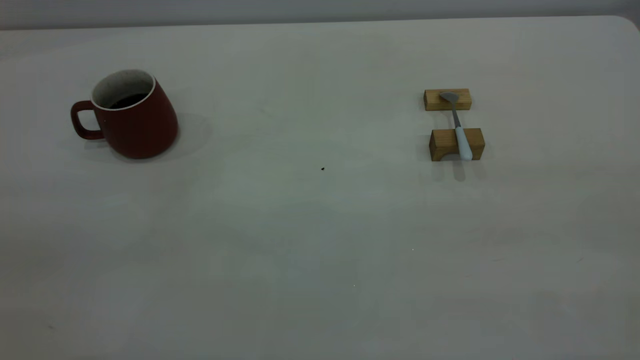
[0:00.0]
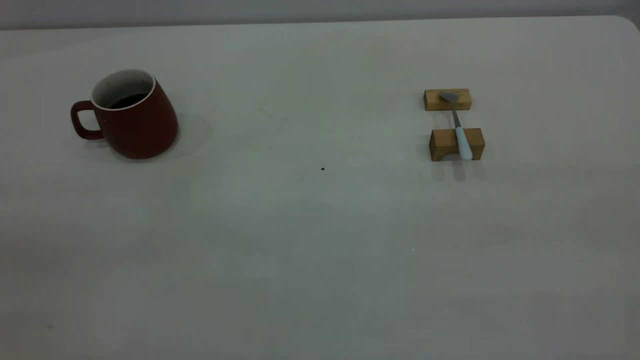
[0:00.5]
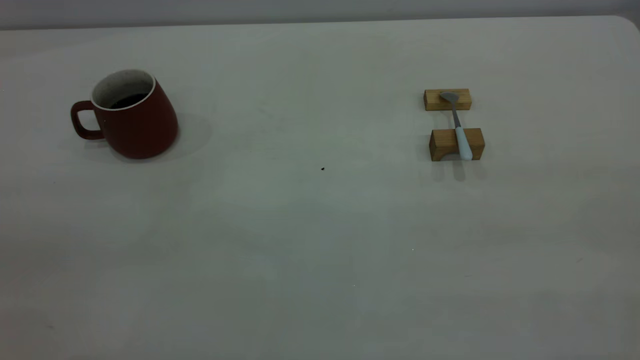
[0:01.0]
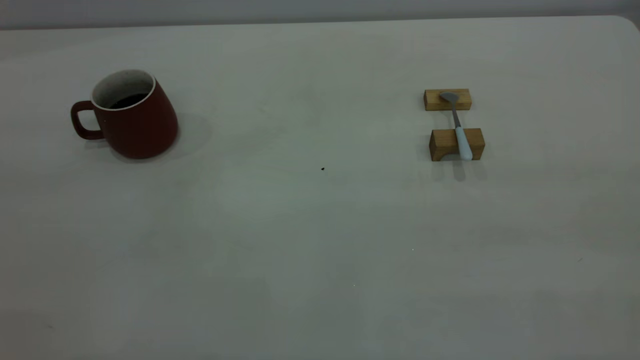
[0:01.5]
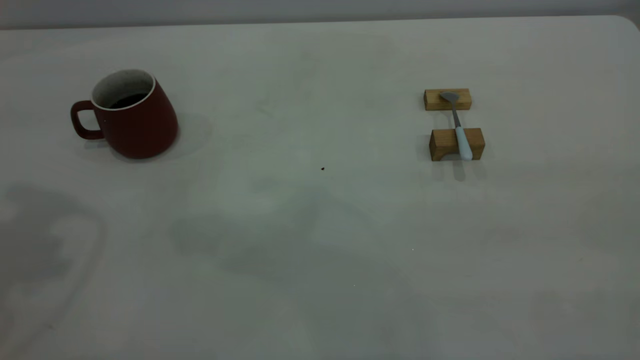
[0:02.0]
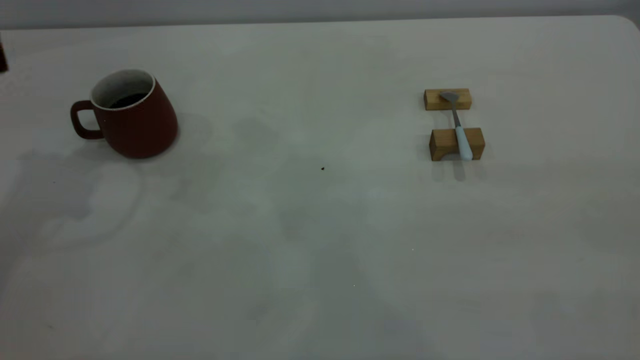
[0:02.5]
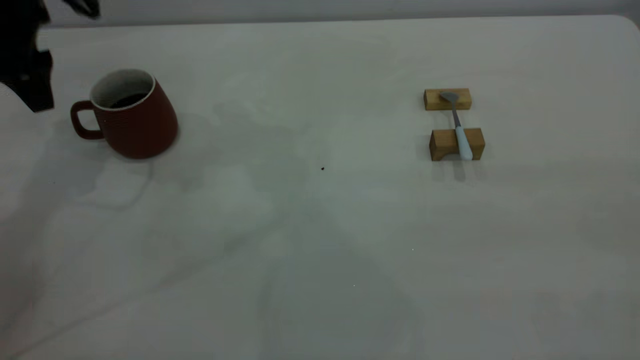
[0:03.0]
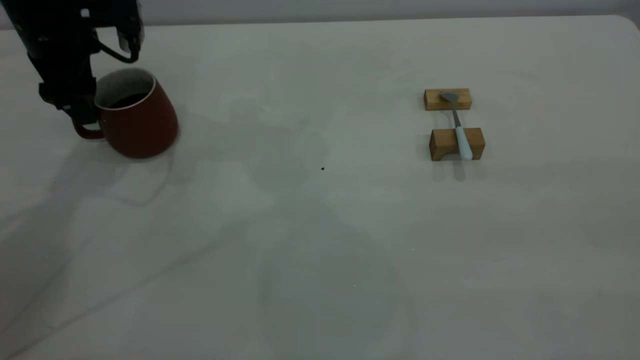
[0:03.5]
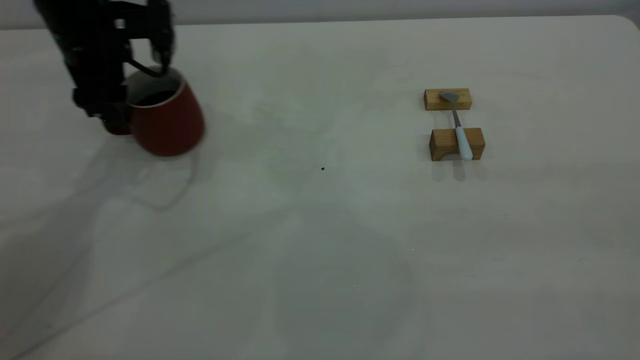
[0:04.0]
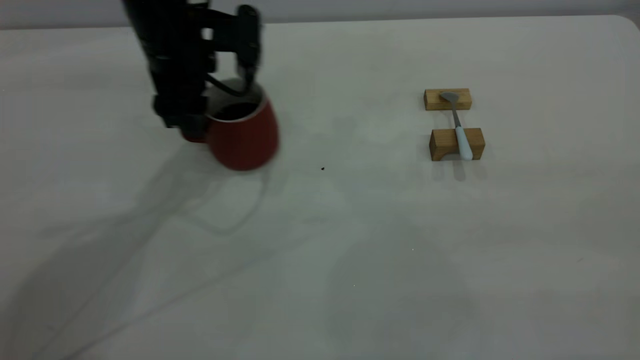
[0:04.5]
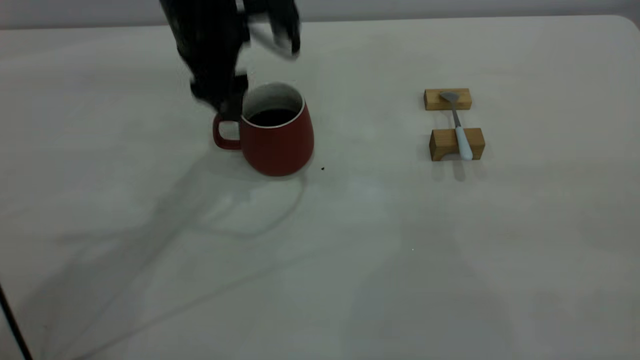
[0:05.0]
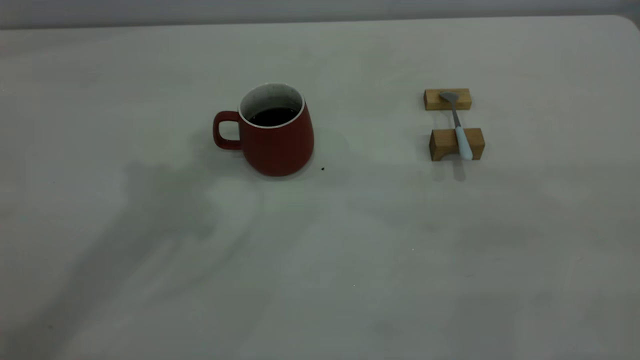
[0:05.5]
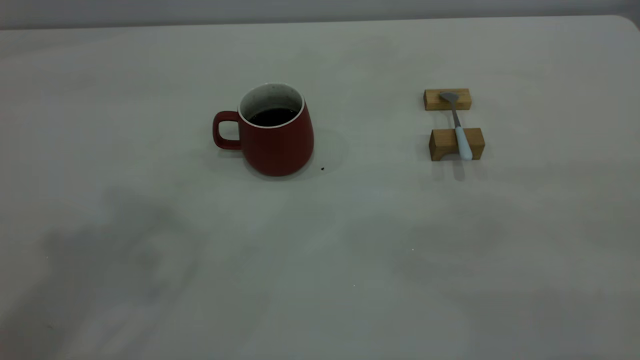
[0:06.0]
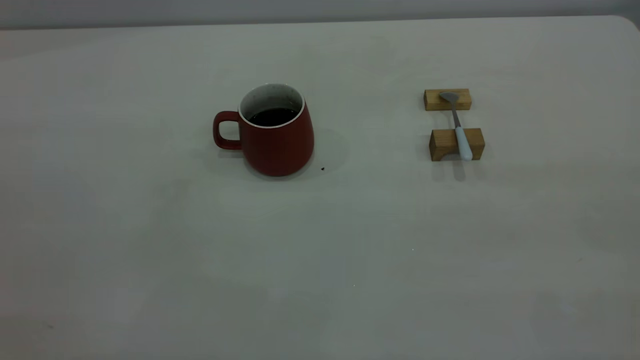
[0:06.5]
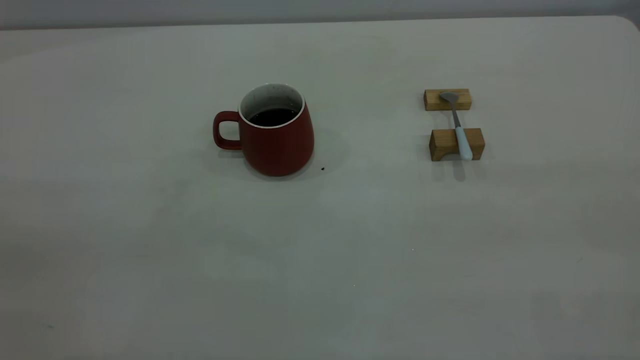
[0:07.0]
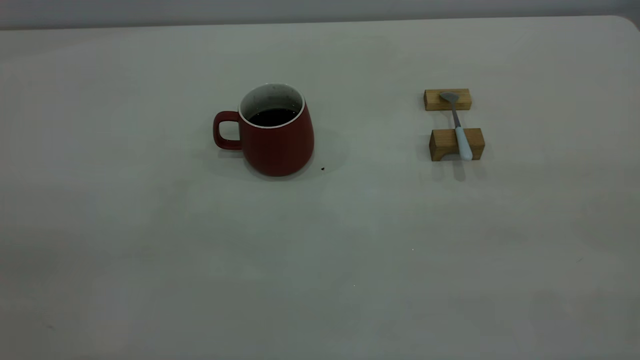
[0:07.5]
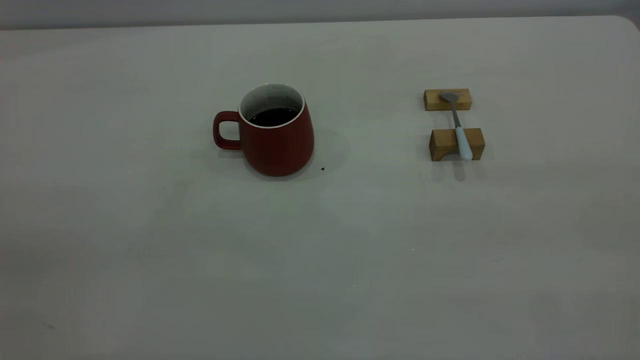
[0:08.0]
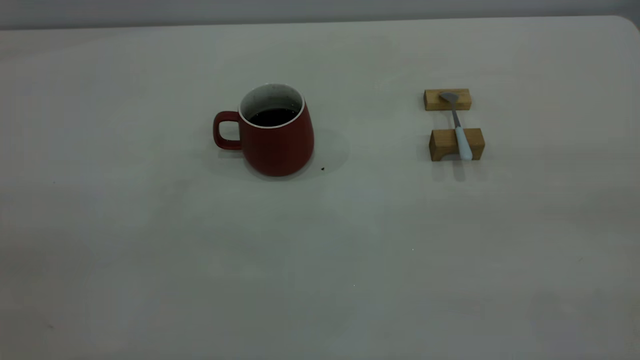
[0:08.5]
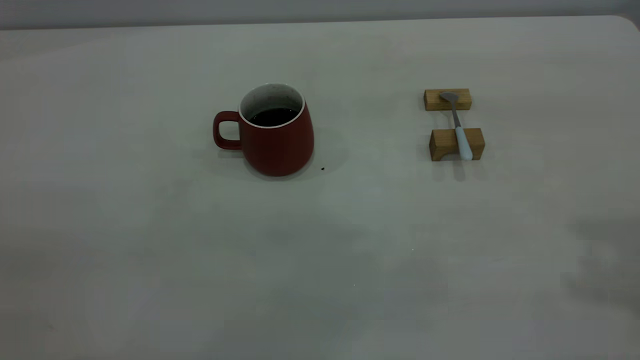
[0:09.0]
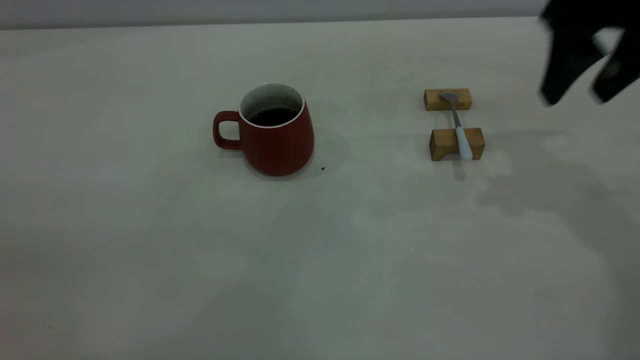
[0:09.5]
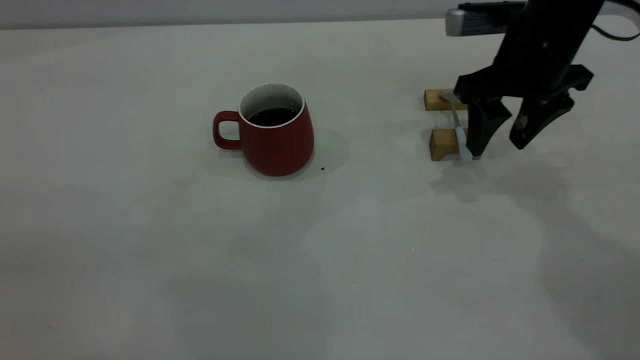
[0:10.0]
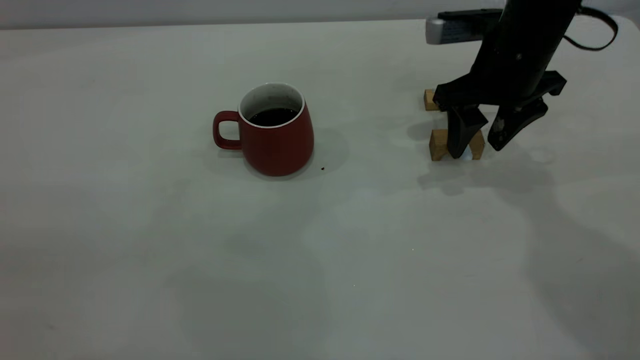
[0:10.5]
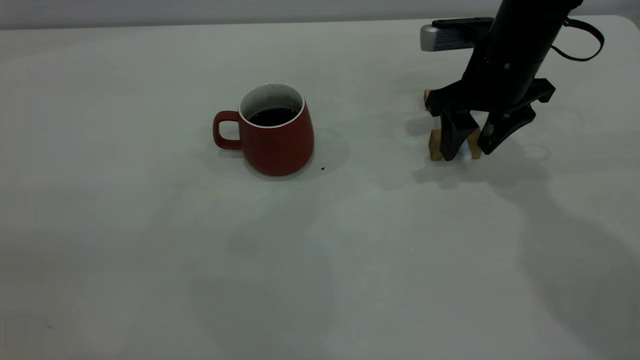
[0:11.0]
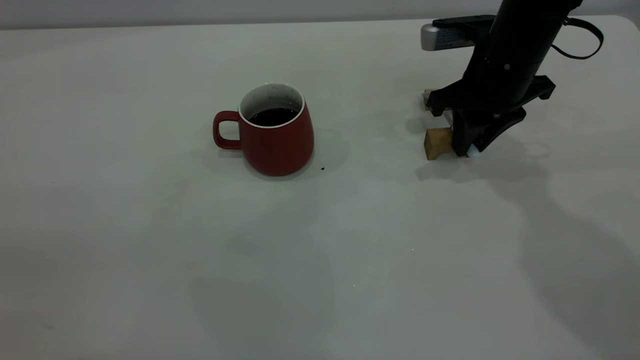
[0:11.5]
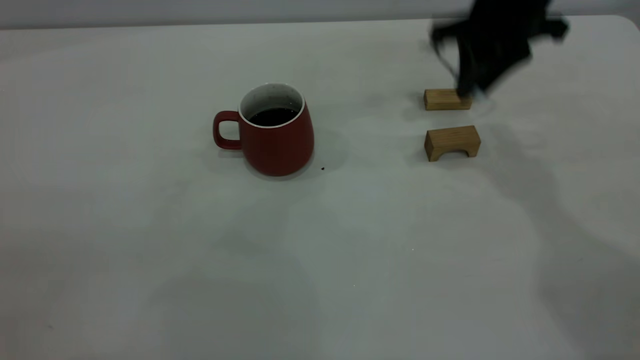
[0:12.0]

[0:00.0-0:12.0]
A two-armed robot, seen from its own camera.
Step, 0:00.0 to 0:05.0: Move the cup with coffee to the center of view.
Step, 0:05.5 to 0:11.5: Pick up the spoon.
0:02.0 to 0:04.0: The left gripper travels downward and forward by about 25 cm.
0:04.0 to 0:06.0: The left gripper goes approximately 40 cm upward and backward.
0:08.0 to 0:10.0: The right gripper goes about 40 cm forward and downward, and opens.
0:10.0 to 0:12.0: The right gripper shifts approximately 5 cm upward, and closes up.

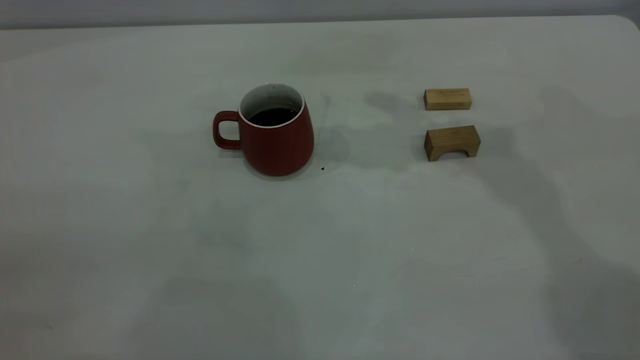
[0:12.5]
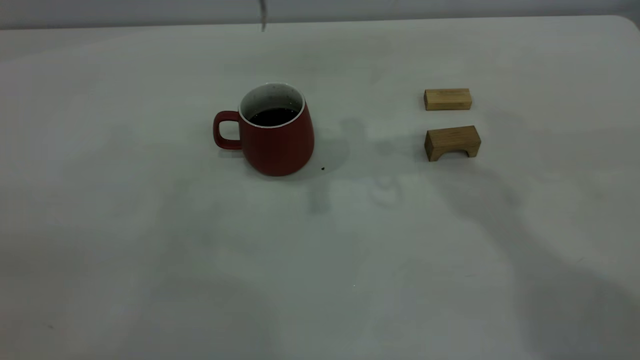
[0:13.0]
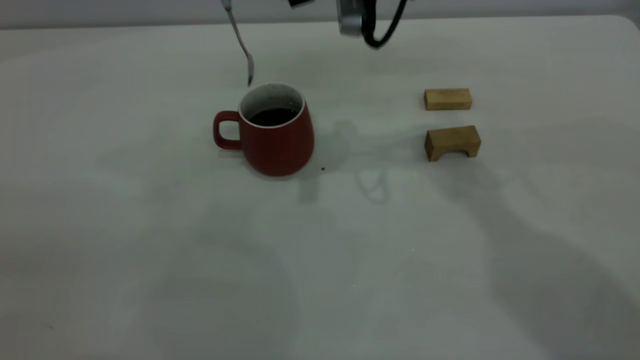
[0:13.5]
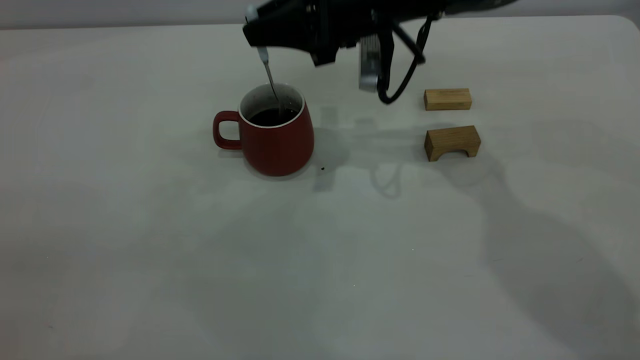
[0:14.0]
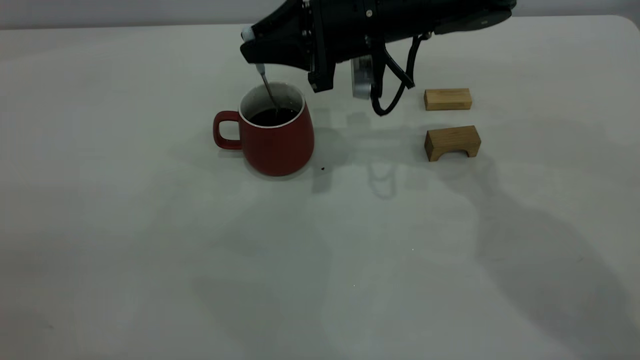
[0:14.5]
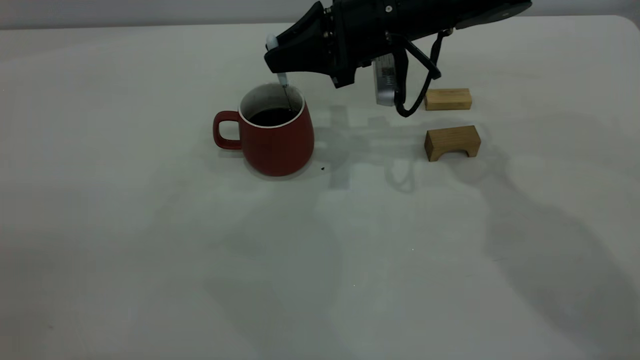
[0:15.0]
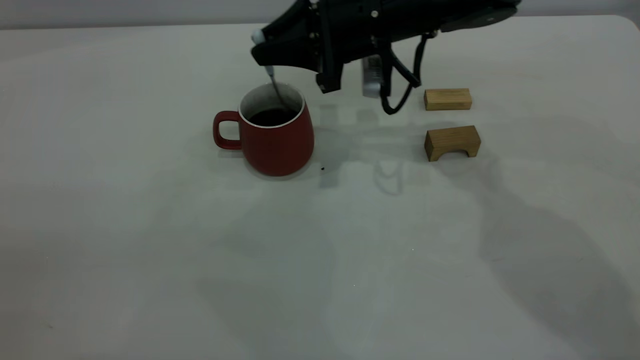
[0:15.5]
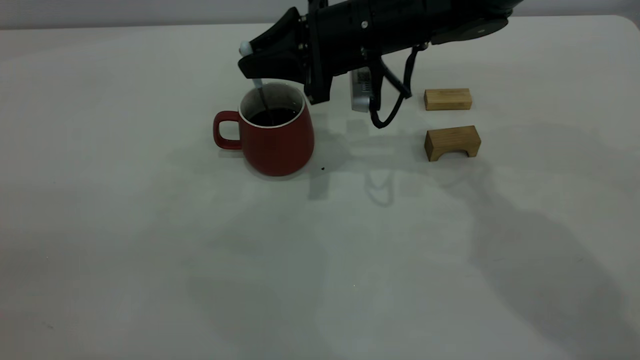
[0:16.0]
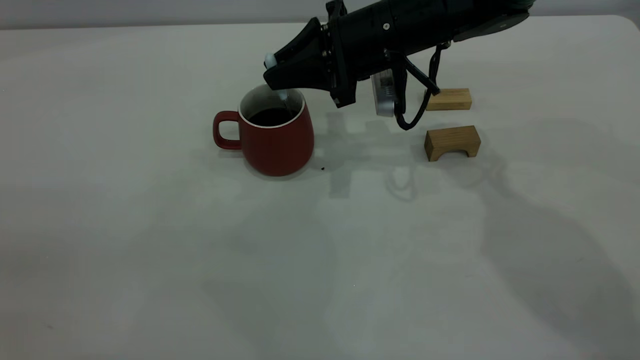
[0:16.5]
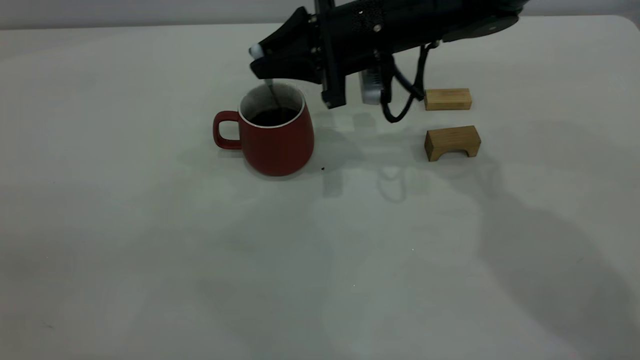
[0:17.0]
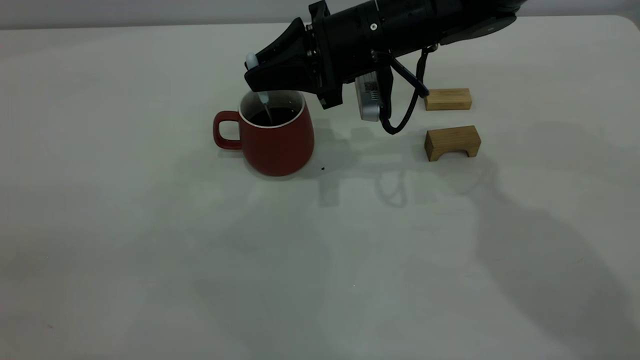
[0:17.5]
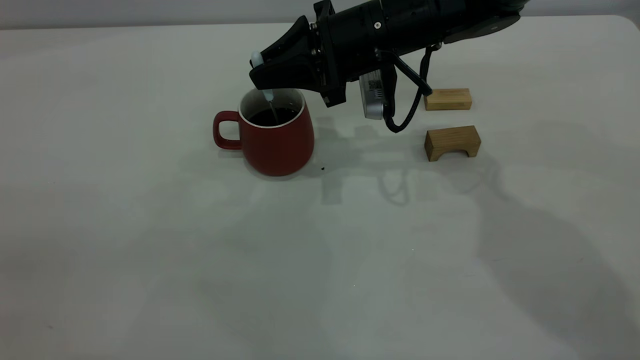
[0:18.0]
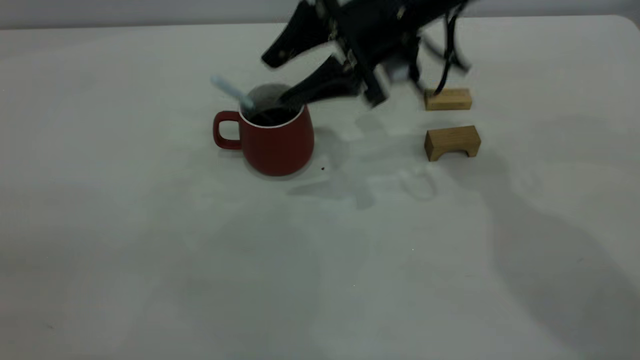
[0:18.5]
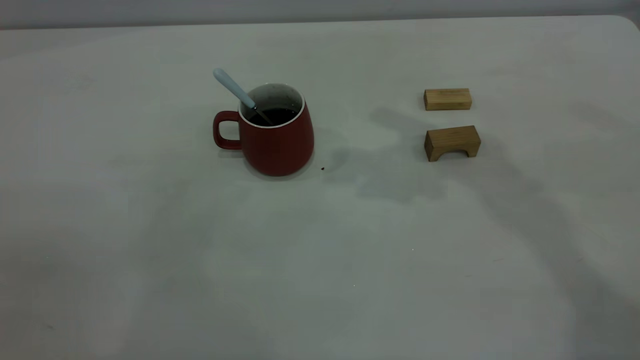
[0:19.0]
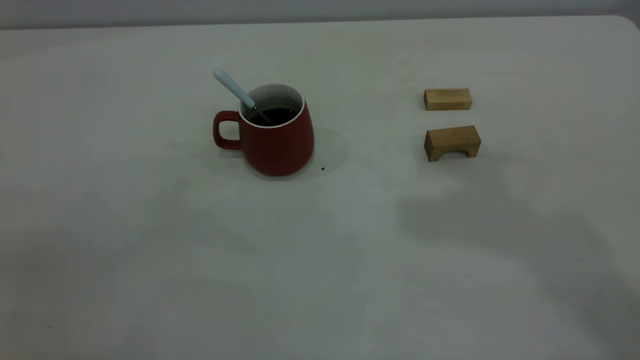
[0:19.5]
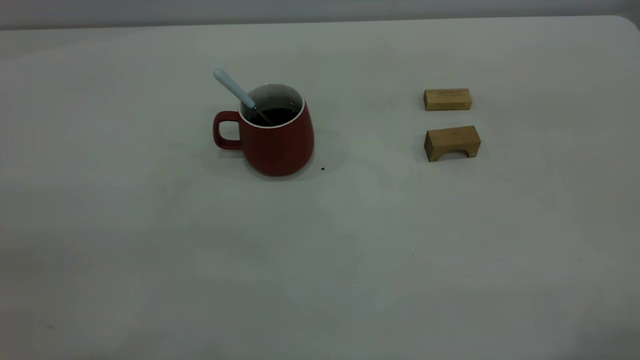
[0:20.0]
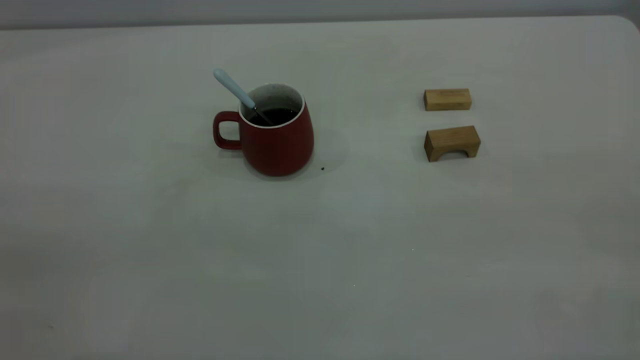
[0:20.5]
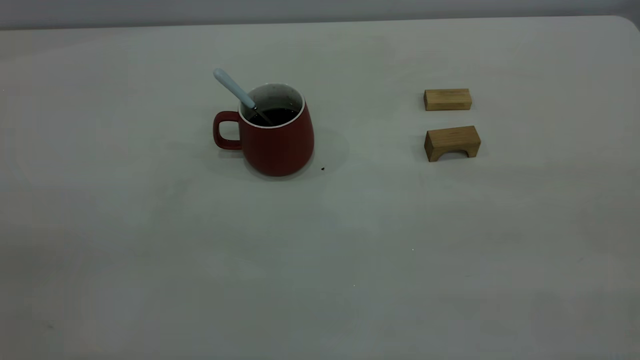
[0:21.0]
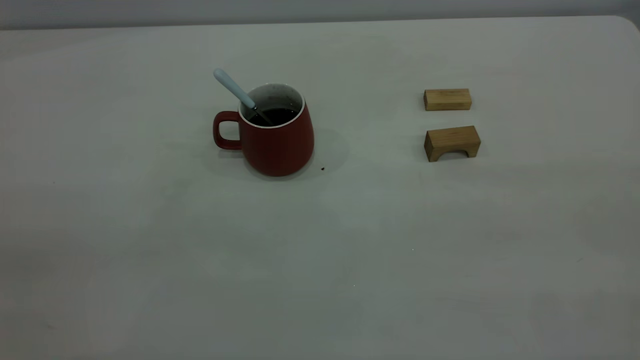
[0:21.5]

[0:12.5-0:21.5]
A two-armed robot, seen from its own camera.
Step, 0:12.5 to 0:18.0: Stir the coffee in the cup.
0:12.5 to 0:14.5: The right gripper shifts approximately 15 cm downward.
0:14.5 to 0:17.0: The grippers make only small movements.
0:17.0 to 0:19.5: The right gripper shifts roughly 40 cm upward and backward, and opens its fingers.
